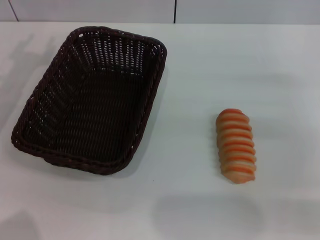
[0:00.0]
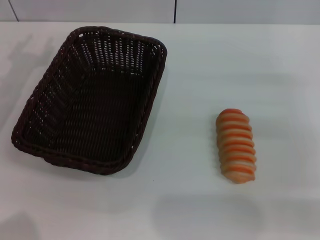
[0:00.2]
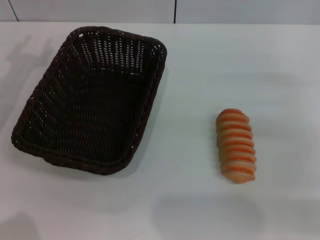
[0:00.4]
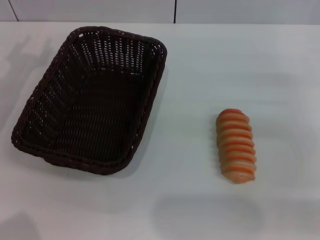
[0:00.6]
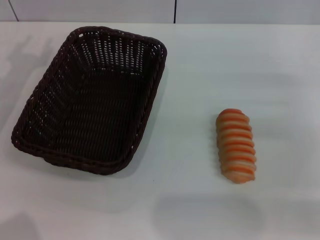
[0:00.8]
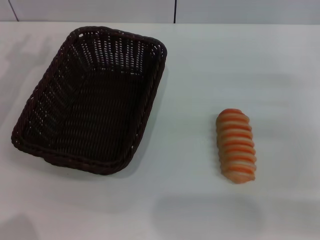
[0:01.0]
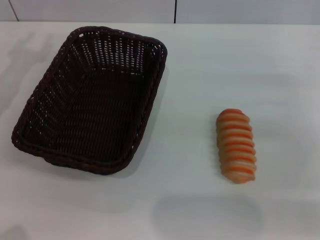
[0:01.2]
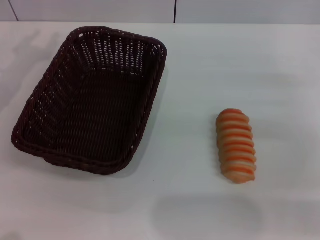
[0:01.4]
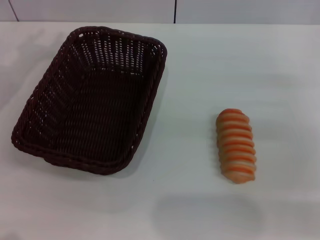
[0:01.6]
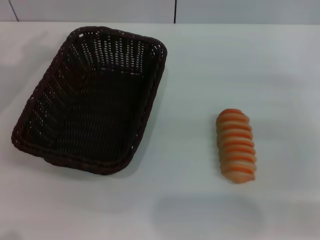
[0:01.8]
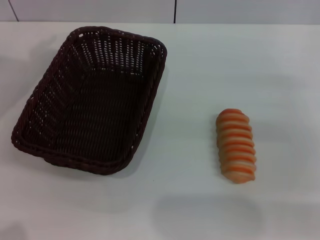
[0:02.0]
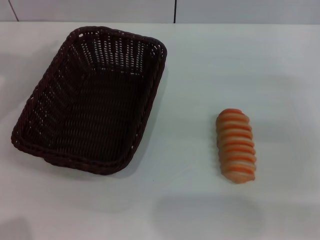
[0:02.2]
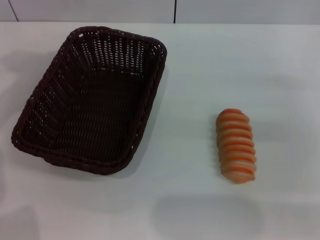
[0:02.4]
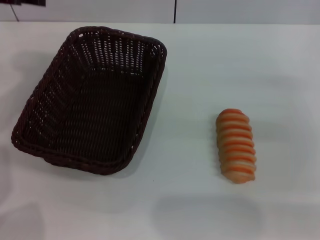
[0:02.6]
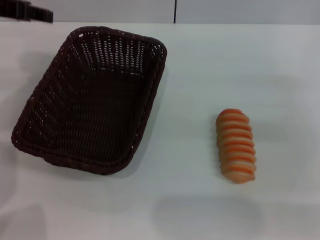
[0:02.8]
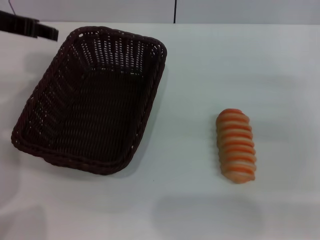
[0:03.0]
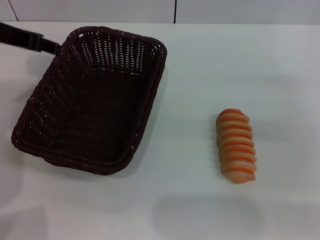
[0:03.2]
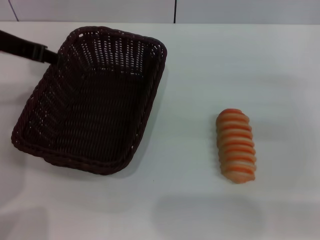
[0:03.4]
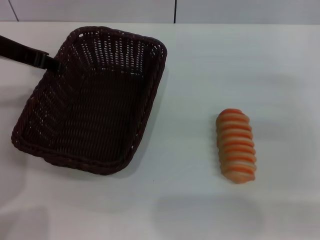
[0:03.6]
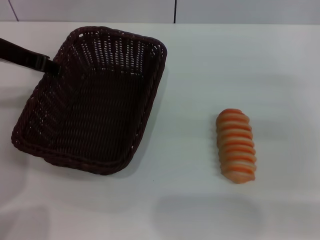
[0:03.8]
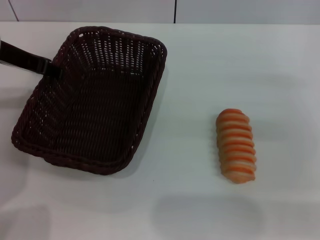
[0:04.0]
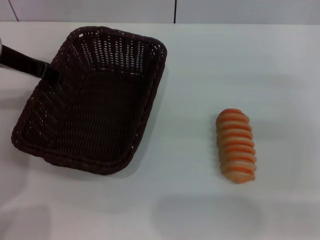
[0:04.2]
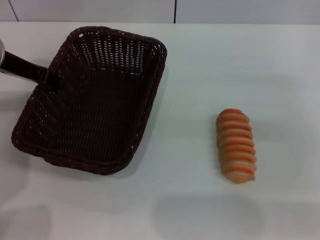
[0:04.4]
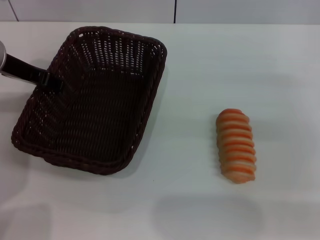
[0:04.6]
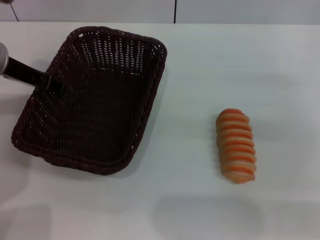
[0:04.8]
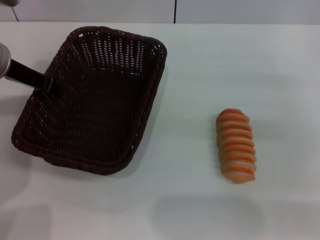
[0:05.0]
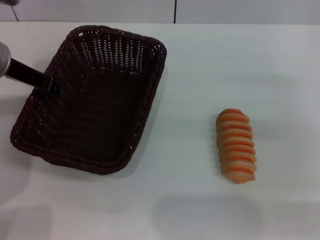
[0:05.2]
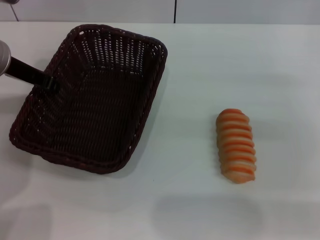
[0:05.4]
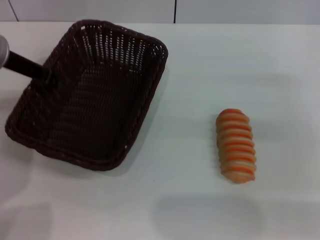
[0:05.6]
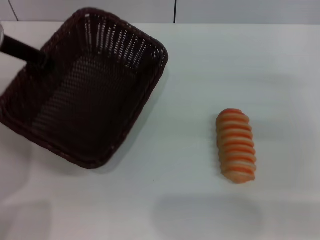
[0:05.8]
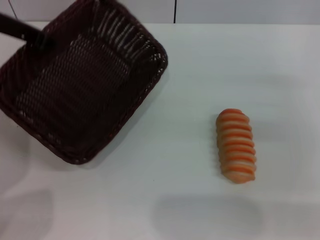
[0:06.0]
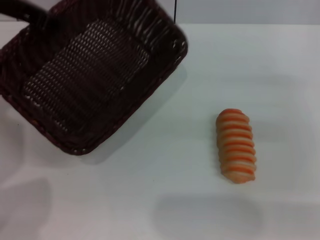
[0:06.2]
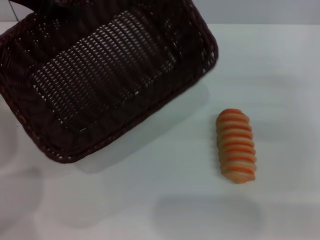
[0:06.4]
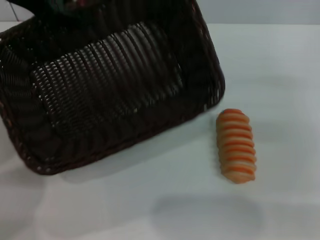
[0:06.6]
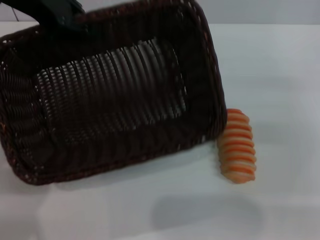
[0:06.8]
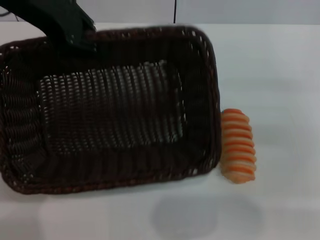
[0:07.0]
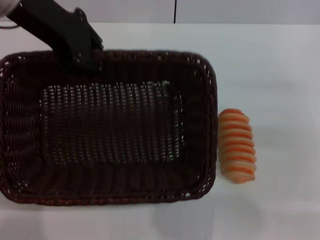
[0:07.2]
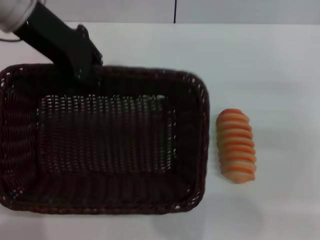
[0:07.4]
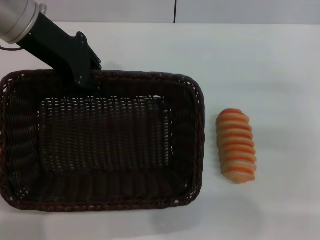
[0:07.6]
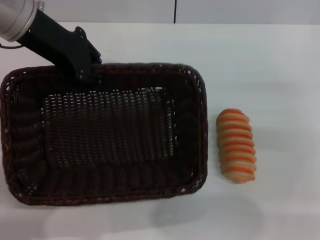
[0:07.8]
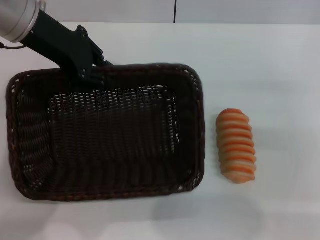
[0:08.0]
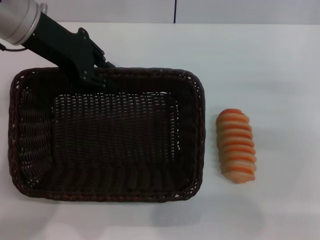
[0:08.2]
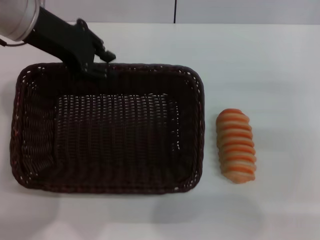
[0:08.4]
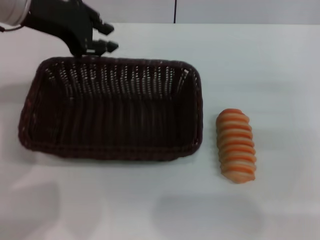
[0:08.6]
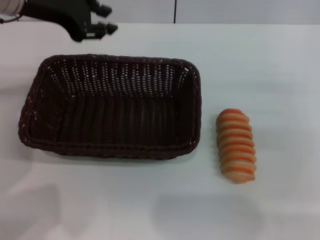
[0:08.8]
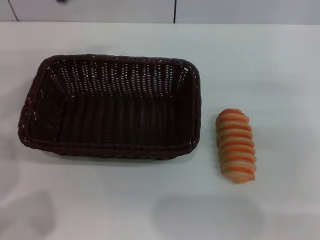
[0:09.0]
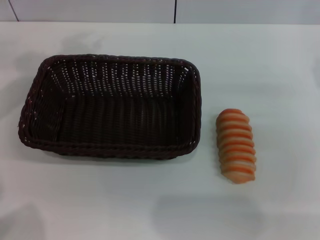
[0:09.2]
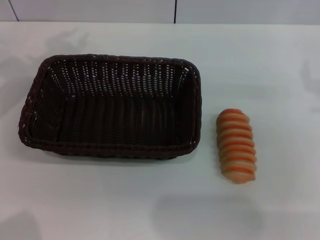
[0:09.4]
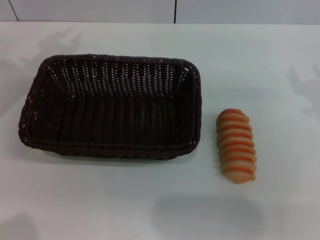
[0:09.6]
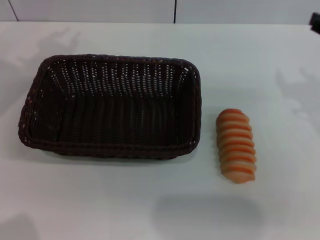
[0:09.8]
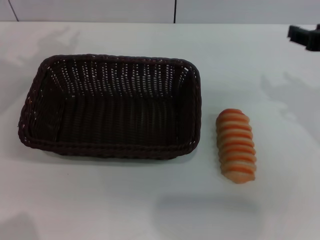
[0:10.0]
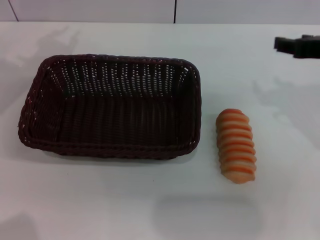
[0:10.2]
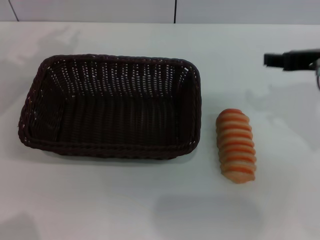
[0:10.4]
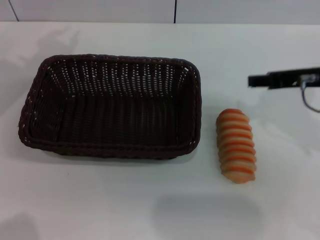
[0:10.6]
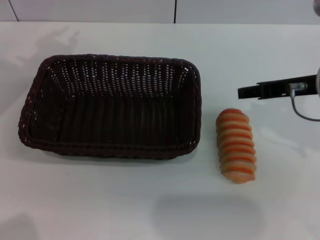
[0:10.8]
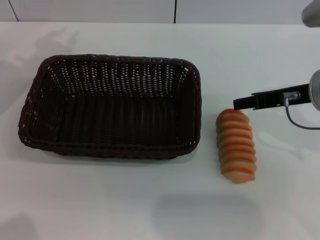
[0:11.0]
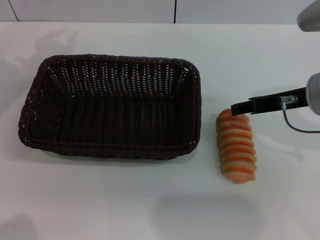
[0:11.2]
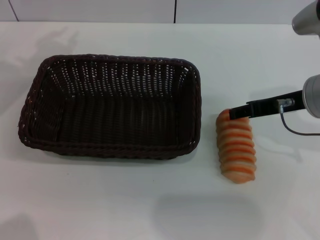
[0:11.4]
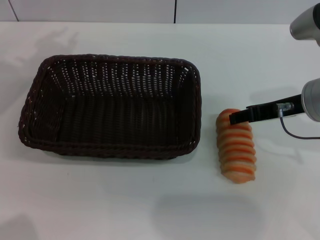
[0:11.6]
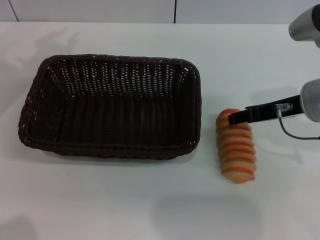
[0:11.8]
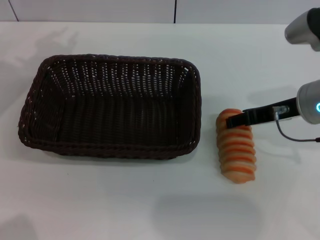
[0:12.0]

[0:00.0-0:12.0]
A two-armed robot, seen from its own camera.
Step, 0:00.0 to 0:05.4: Grasp the basket with the left gripper.
Step, 0:05.6 to 0:08.6: Place the basket in the center of the table with the left gripper.
0:01.6 to 0:03.0: The left gripper heads to the right, covering about 5 cm.
0:03.0 to 0:04.4: The left gripper is displaced downward by roughly 5 cm.
0:04.4 to 0:06.0: The left gripper shifts by approximately 5 cm, and closes its fingers.
0:06.0 to 0:07.6: The left gripper heads to the right, covering some 5 cm.
0:07.6 to 0:09.0: The left gripper moves to the left, about 5 cm.
0:09.0 to 0:10.4: The two grippers go approximately 5 cm to the left.
0:10.4 to 0:12.0: The right gripper goes roughly 5 cm downward.

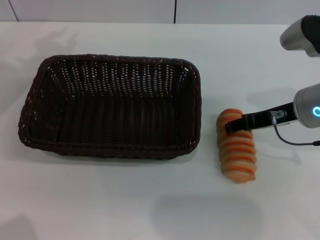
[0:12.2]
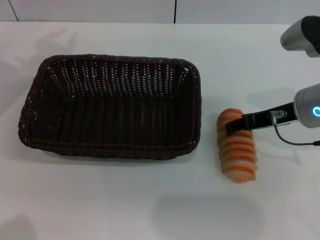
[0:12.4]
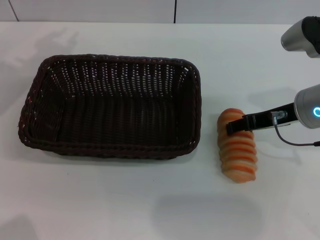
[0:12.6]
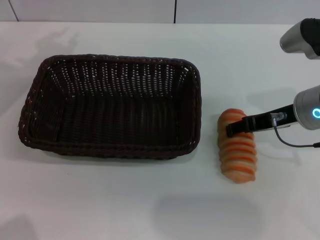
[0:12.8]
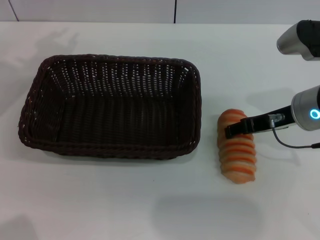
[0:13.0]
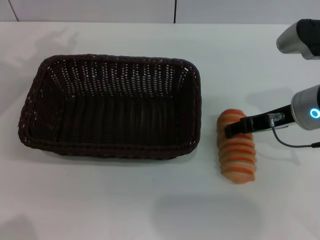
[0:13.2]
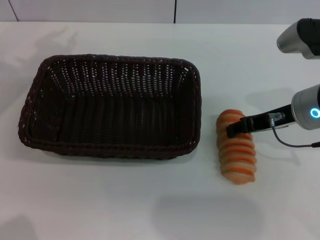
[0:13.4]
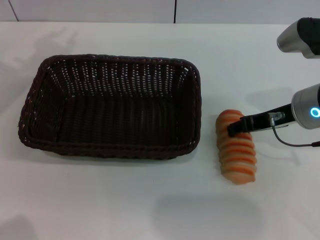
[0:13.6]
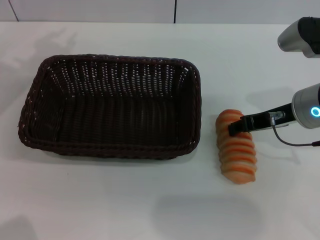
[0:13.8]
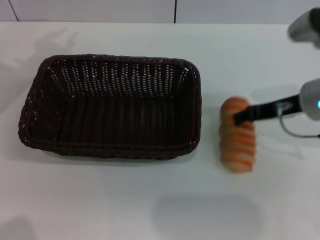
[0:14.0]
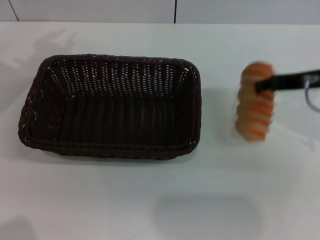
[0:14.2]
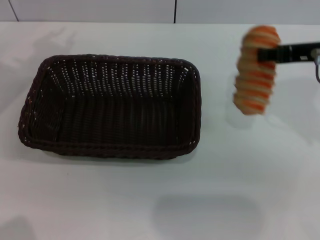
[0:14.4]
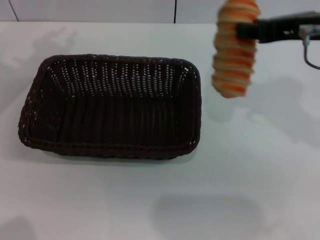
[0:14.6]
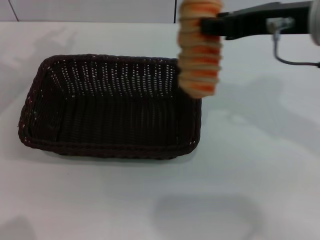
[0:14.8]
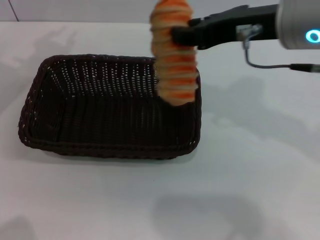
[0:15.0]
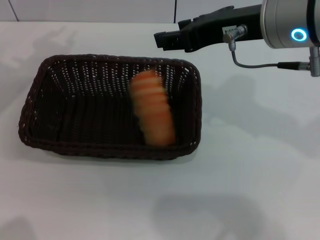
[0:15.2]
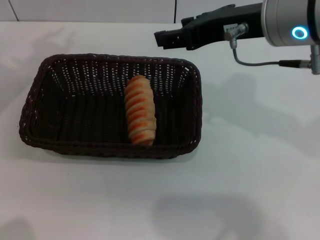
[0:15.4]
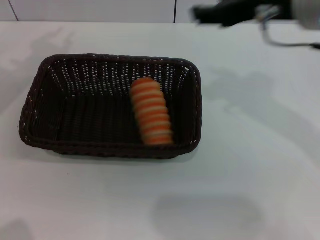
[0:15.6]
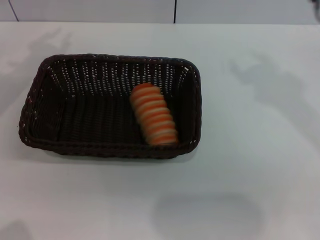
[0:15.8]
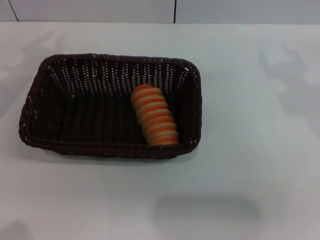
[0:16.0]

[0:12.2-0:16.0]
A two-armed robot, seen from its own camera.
Step, 0:13.8 to 0:15.6: Place the long bread in the basket with right gripper.
0:12.2 to 0:13.4: The two grippers keep their place.
0:13.4 to 0:14.8: The right gripper moves upward, roughly 15 cm, and closes its fingers.
0:14.8 to 0:16.0: The right gripper heads to the right, covering roughly 10 cm, and opens its fingers.

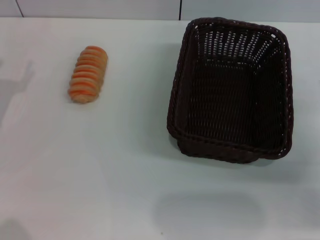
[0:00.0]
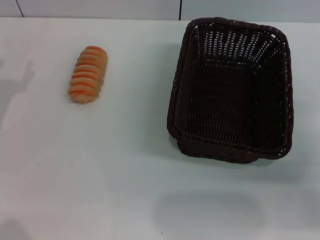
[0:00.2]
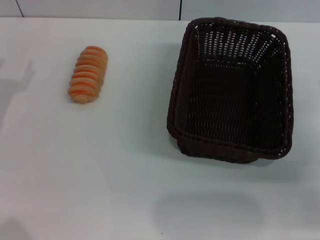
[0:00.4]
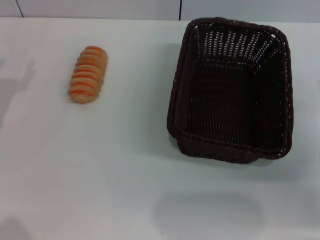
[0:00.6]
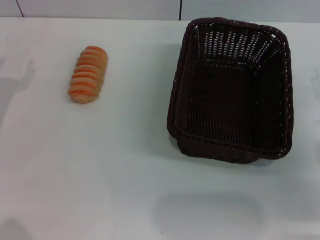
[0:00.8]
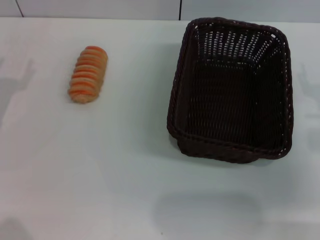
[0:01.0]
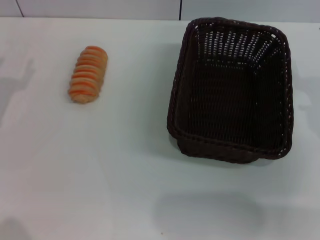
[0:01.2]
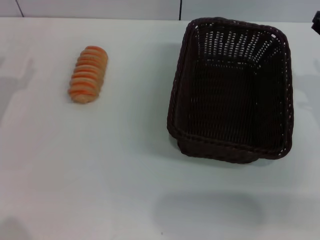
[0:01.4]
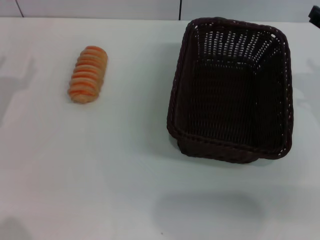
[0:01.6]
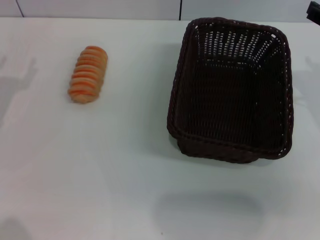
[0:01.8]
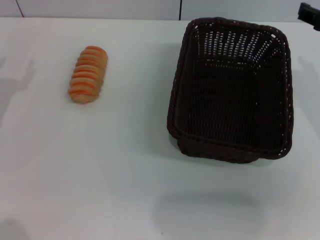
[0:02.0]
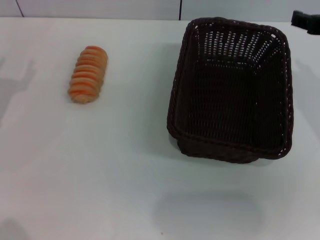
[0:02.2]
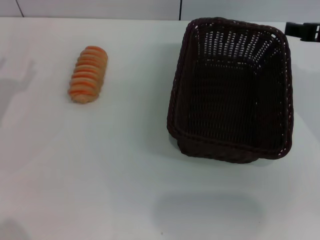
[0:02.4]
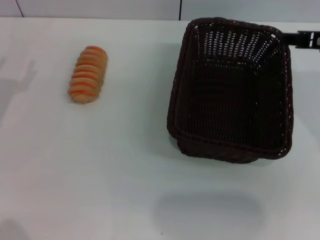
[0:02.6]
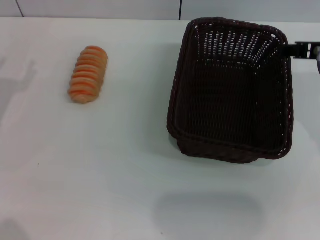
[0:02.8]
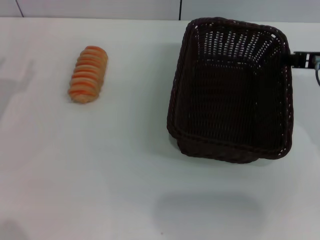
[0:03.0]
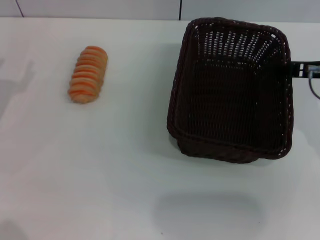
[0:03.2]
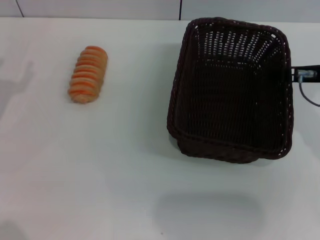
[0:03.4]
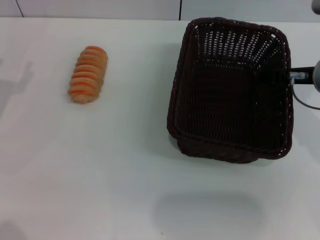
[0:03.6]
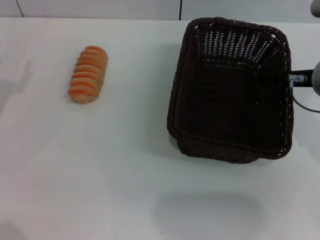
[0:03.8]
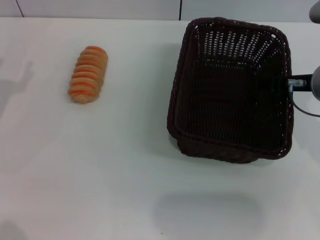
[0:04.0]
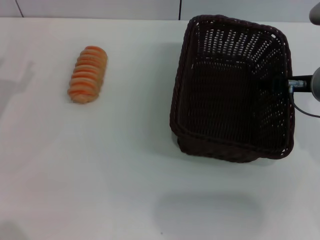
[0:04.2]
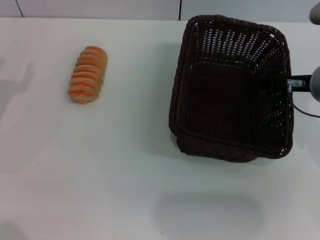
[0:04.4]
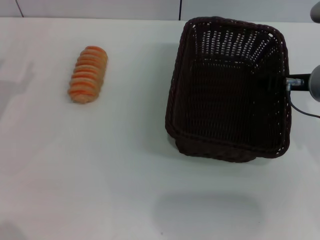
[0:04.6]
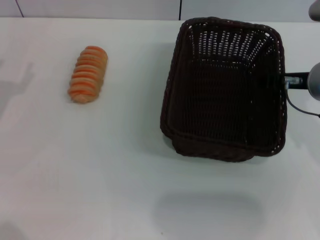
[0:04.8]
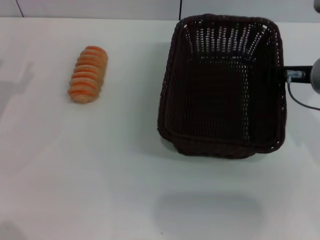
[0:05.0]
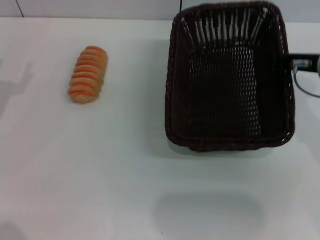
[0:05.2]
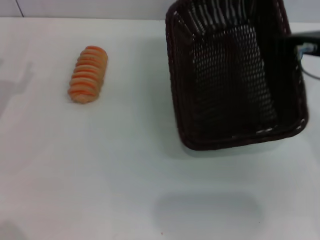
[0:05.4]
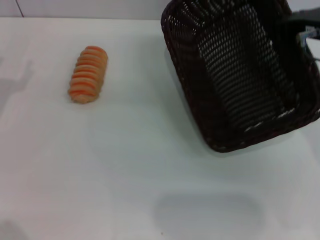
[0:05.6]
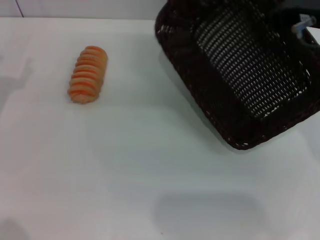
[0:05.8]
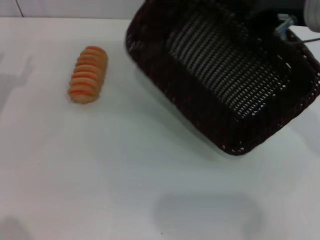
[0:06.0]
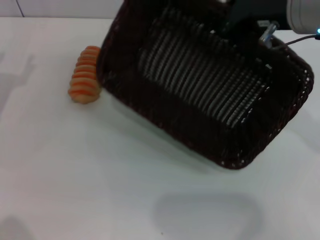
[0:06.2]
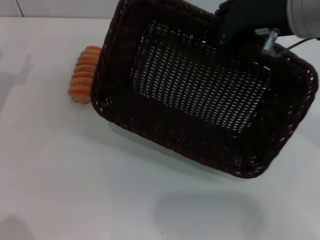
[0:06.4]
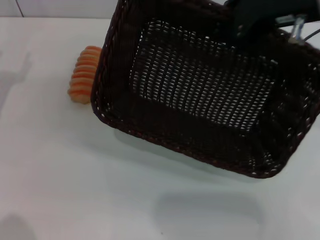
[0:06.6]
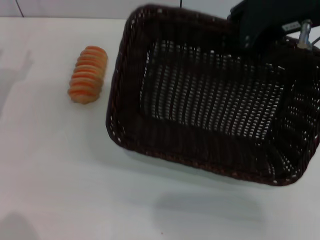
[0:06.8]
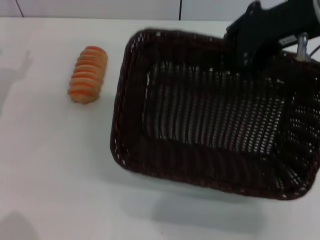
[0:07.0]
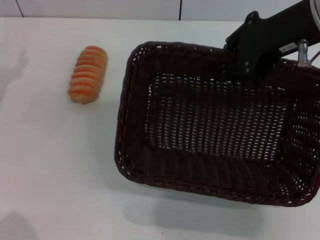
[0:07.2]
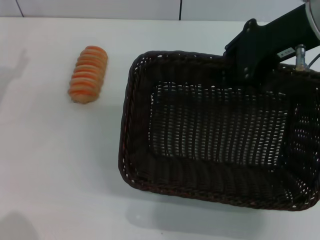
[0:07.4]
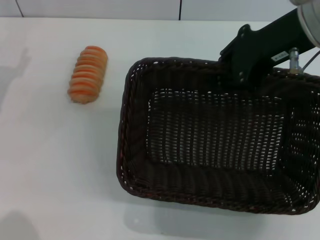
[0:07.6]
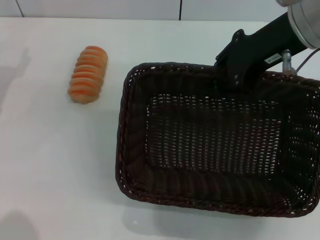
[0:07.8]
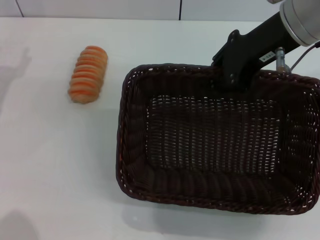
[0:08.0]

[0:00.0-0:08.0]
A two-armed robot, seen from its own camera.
Step, 0:00.0 to 0:05.2: Pick up the dark basket with the right gripper.
0:00.0 to 0:01.6: The right gripper goes roughly 10 cm upward.
0:01.6 to 0:03.2: The right gripper moves about 5 cm.
0:03.2 to 0:04.8: The right gripper closes its fingers.
0:04.8 to 0:06.4: The right gripper heads upward and to the left, covering roughly 15 cm, and closes.
